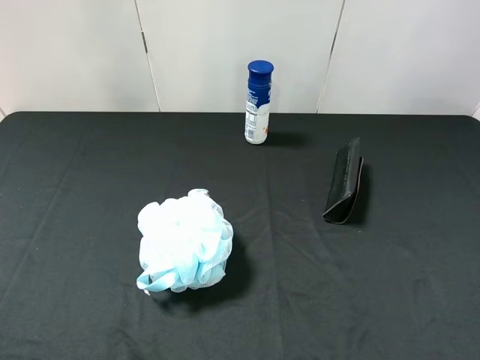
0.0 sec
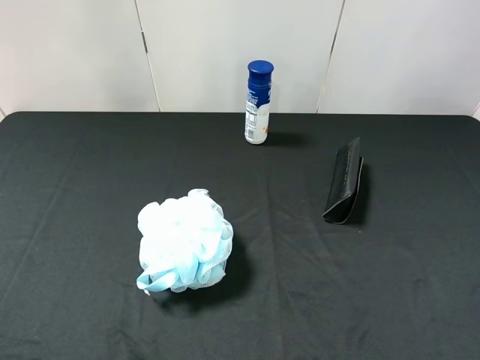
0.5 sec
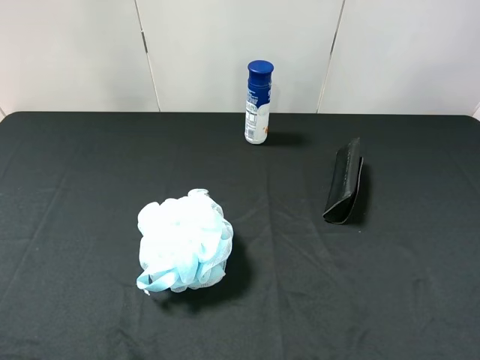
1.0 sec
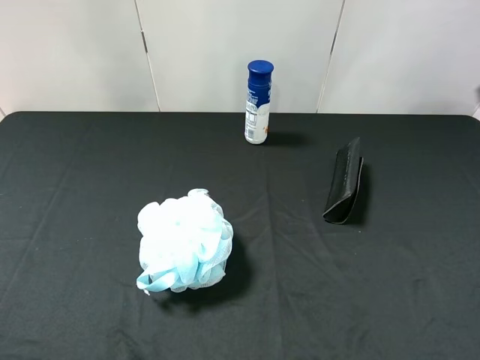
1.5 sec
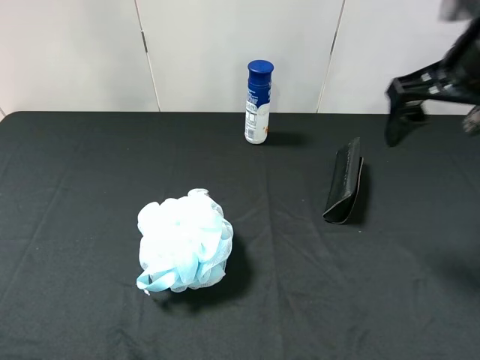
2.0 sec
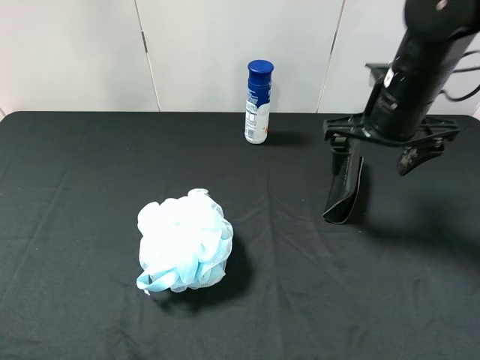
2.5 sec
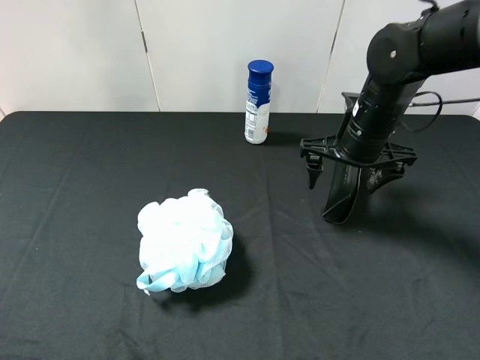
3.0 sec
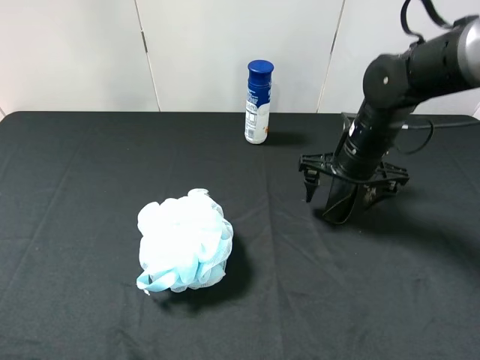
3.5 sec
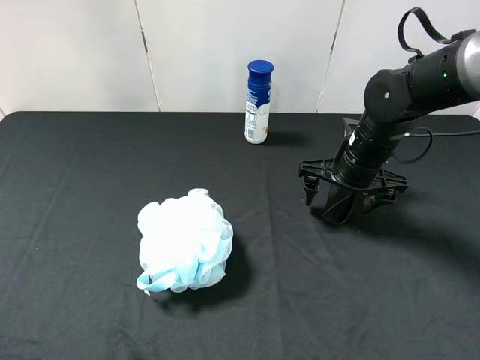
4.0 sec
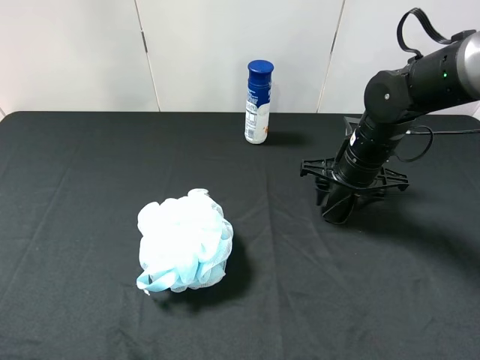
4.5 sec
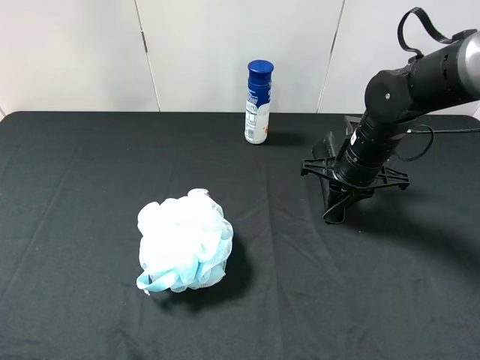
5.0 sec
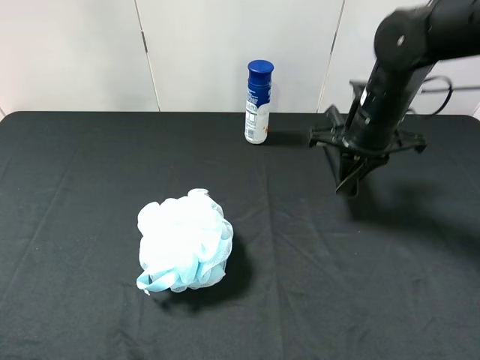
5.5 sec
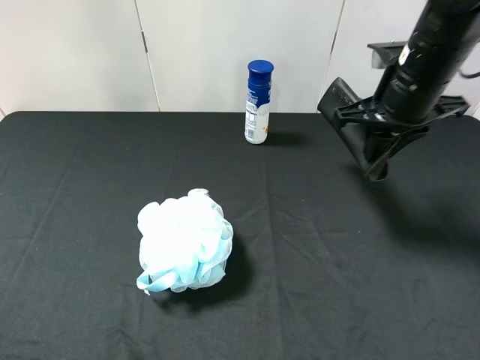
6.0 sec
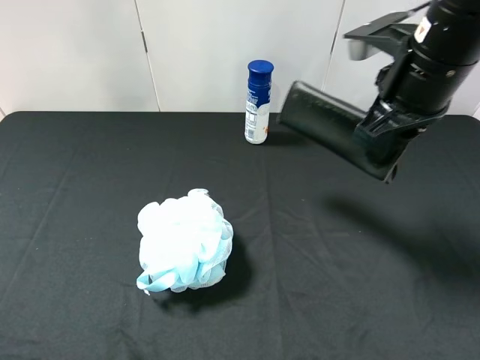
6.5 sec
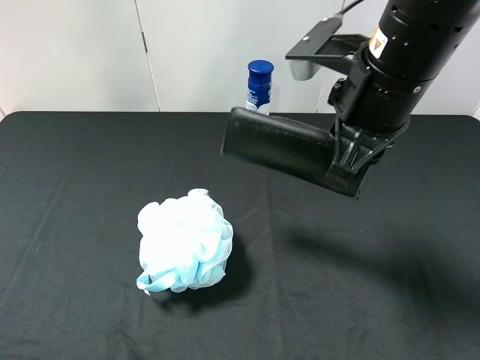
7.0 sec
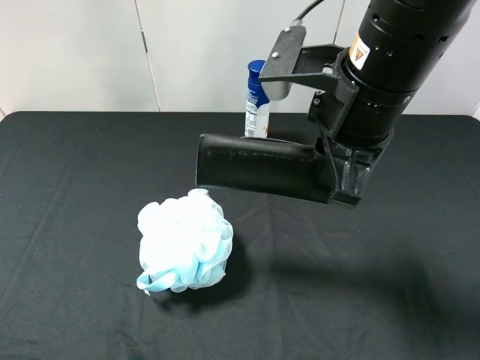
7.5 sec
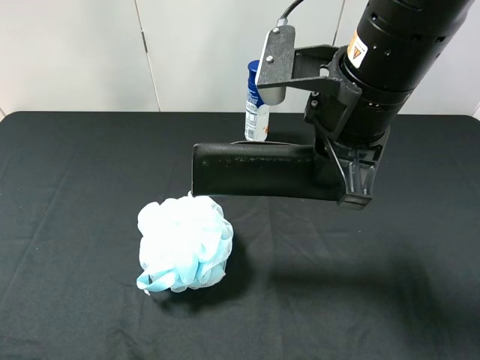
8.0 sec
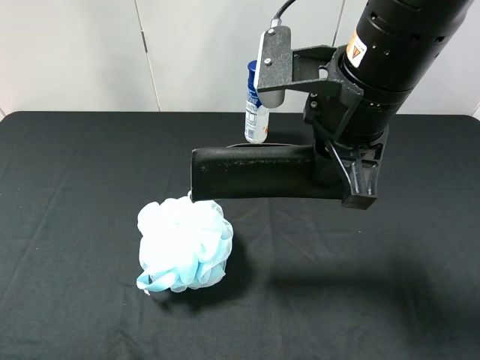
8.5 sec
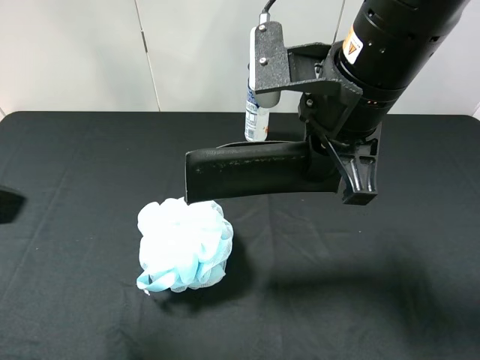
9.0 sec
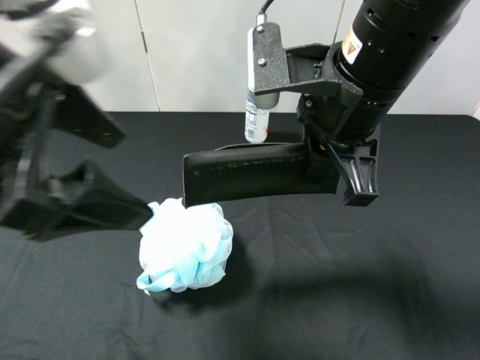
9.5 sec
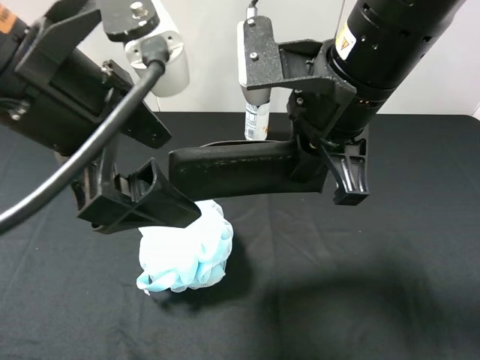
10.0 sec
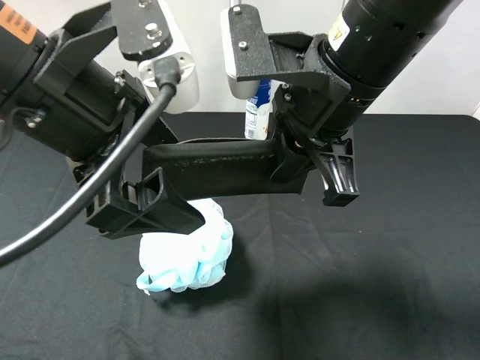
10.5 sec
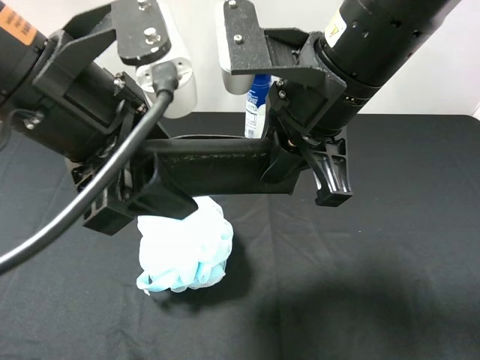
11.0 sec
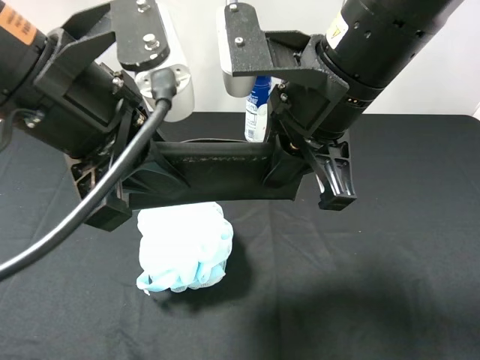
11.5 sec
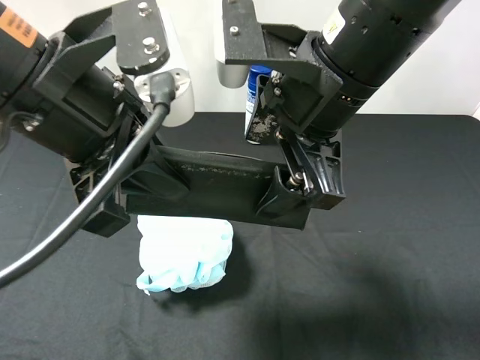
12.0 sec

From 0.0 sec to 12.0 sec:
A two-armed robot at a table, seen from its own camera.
Task of the whole recording: use the right gripper to pick up the item and transfer it from the right gripper to the left gripper.
Step, from 0.0 sec to 4.0 sec: Use the right gripper to grab the eyeglass case on the right side of the table.
From 0.0 sec to 2.0 sec: The right gripper heads forward and to the left, covering about 25 cm.
From 2.0 sec to 4.0 sec: The right gripper goes some 20 cm downward.
From 4.0 sec to 6.0 sec: The right gripper is displaced upward by about 15 cm, and closes its fingers.
From 6.0 sec to 8.0 sec: The right gripper moves to the left and backward, roughly 15 cm.
From 8.0 sec to 10.0 sec: The left gripper moves to the right and forward, approximately 25 cm.
From 10.0 sec to 12.0 sec: The right gripper opens; the left gripper closes.

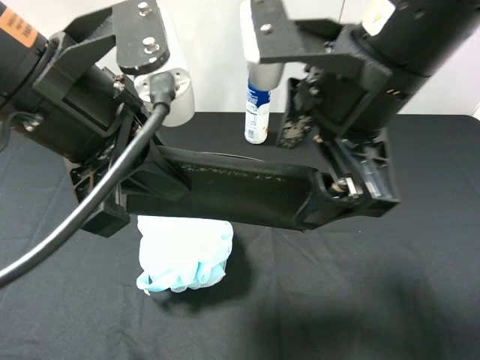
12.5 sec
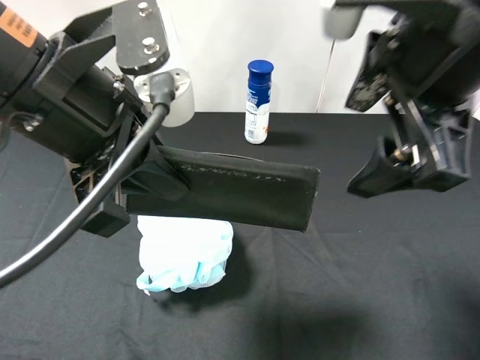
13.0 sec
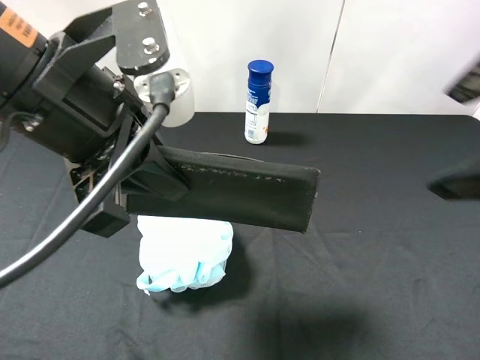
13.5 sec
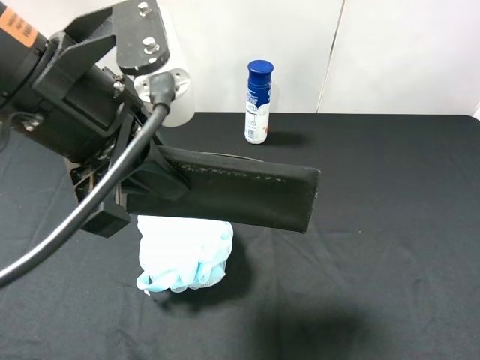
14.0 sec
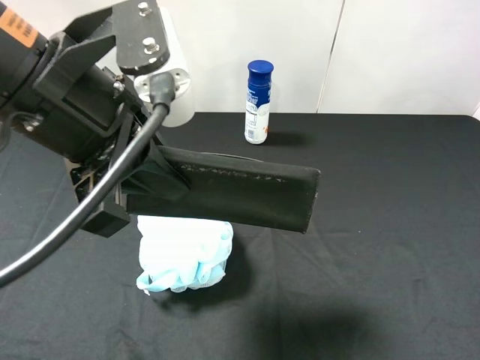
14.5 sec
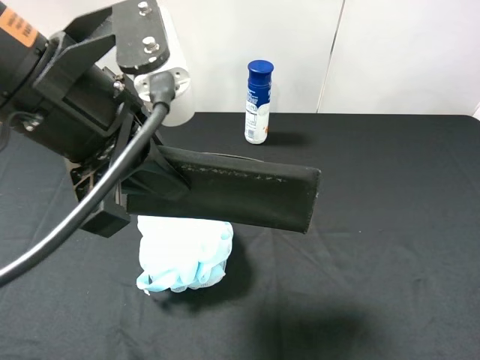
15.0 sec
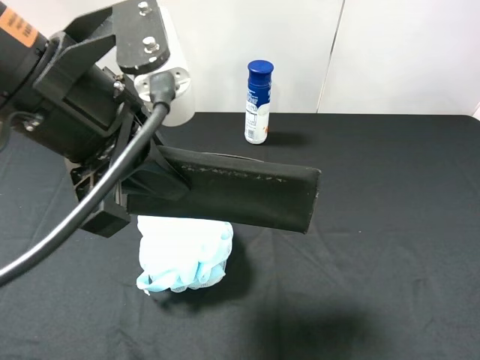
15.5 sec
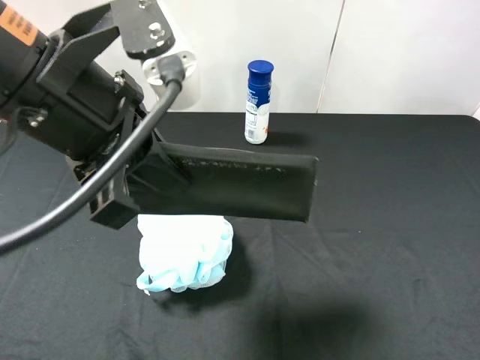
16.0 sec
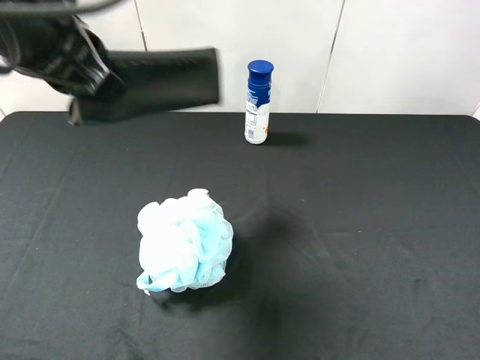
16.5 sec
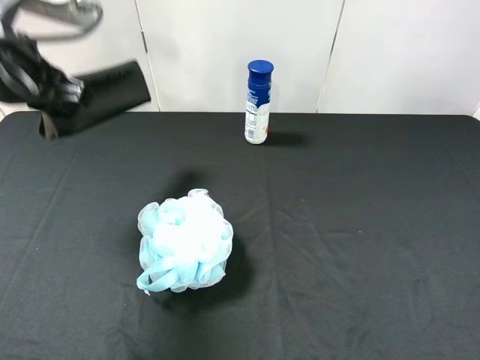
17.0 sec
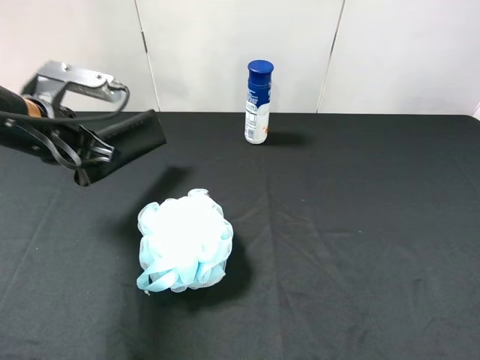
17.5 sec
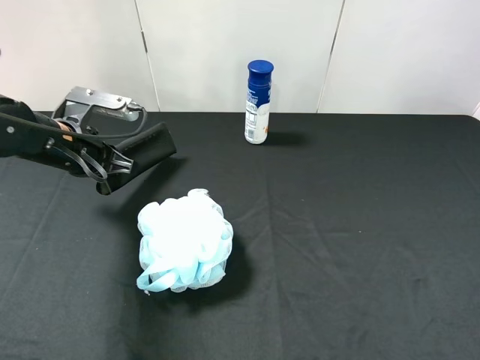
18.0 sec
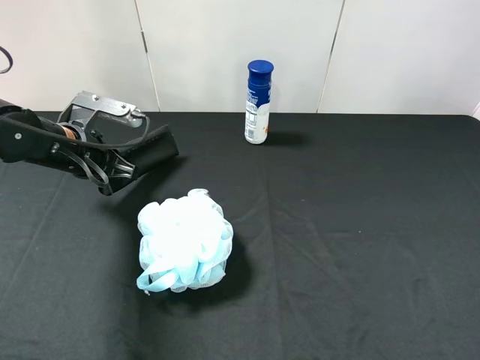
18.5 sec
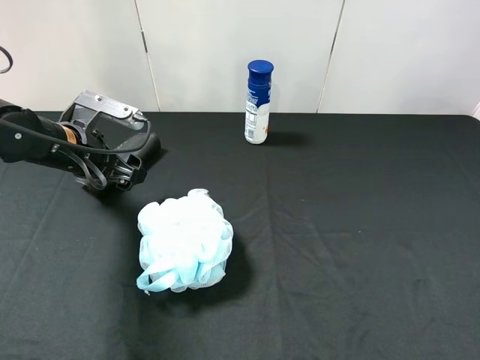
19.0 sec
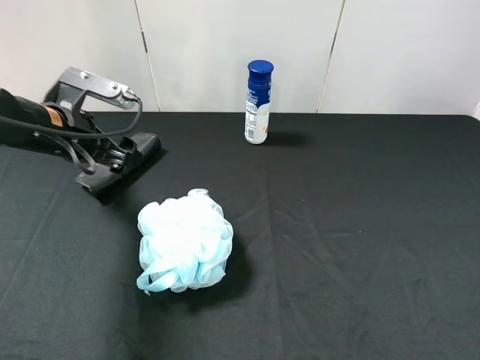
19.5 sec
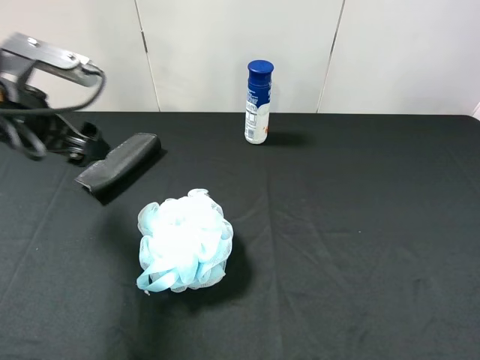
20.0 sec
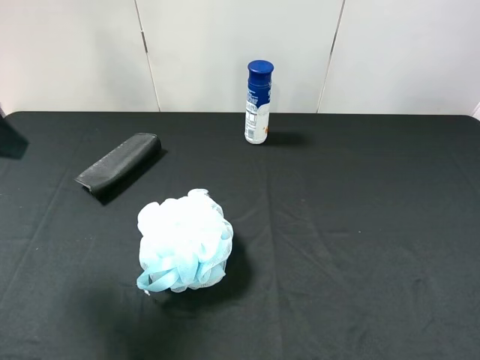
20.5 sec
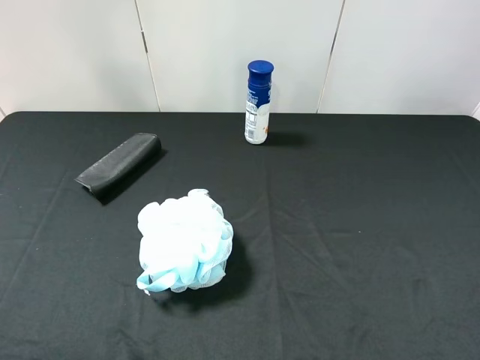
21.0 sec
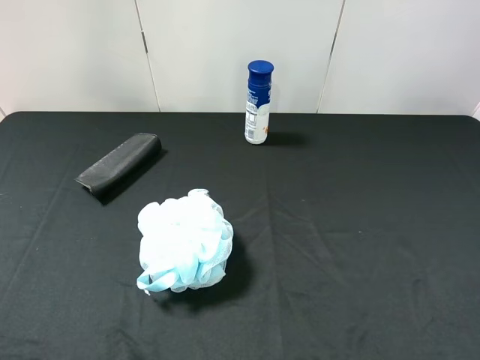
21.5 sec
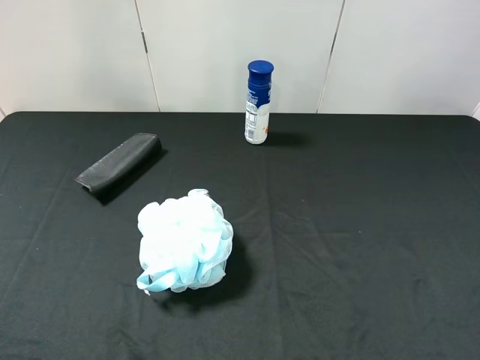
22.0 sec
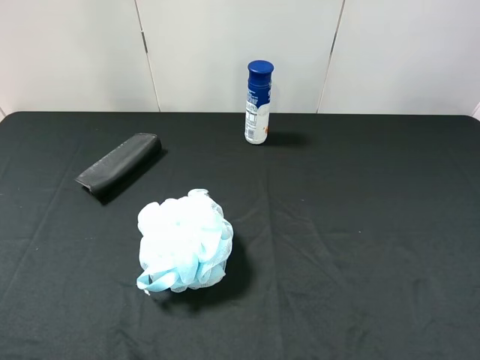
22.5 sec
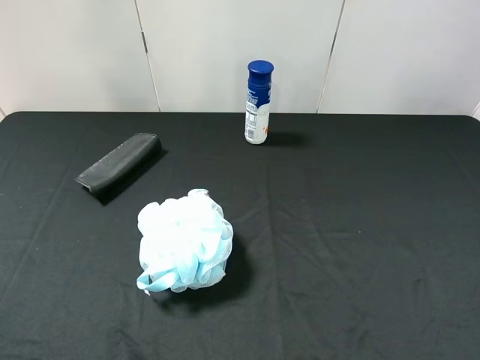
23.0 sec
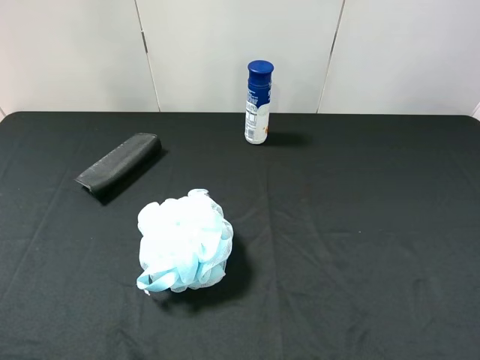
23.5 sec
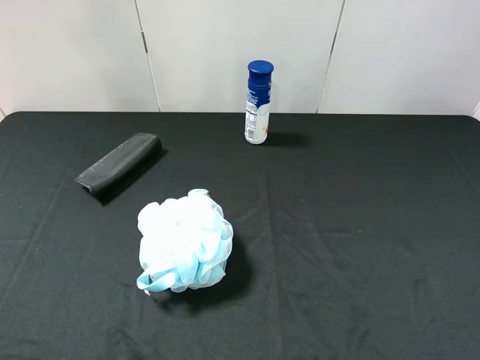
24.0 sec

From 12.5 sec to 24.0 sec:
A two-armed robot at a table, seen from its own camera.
Task of the whole recording: use the right gripper to pick up the item and transfer it from the right gripper to the left gripper.
Step, from 13.0 sec to 19.0 sec: The left gripper places eyeglass case on the left side of the table.
From 12.5 sec to 14.5 sec: The right gripper heads to the right and backward, covering some 25 cm.
From 14.5 sec to 16.5 sec: The left gripper heads forward, covering roughly 5 cm.
From 16.5 sec to 18.5 sec: The left gripper goes some 20 cm downward.
From 18.5 sec to 20.0 sec: The left gripper is displaced upward and backward by some 10 cm, and opens up.
From 20.0 sec to 22.0 sec: The left gripper goes some 25 cm backward.

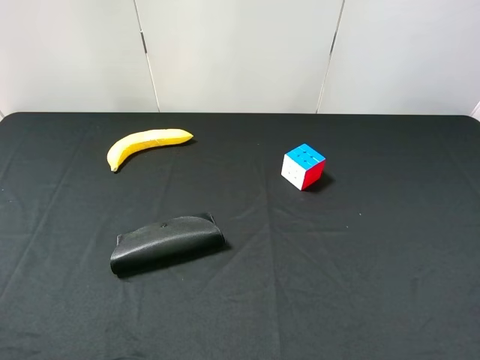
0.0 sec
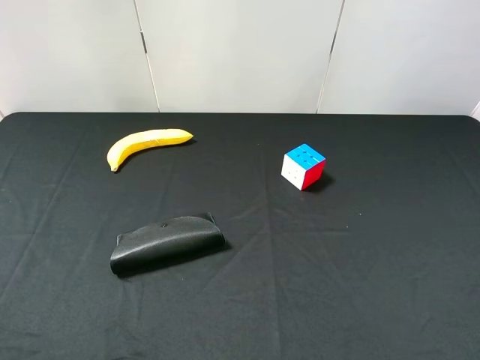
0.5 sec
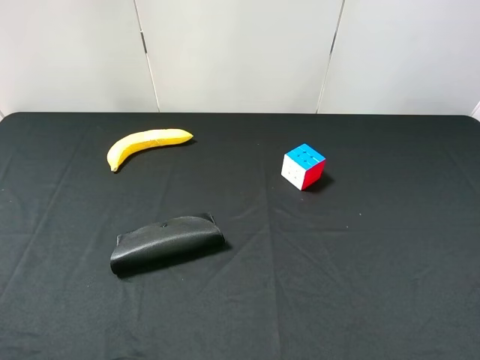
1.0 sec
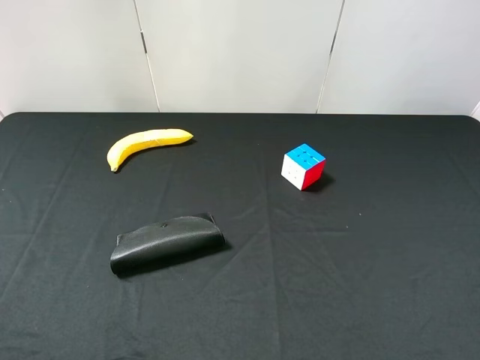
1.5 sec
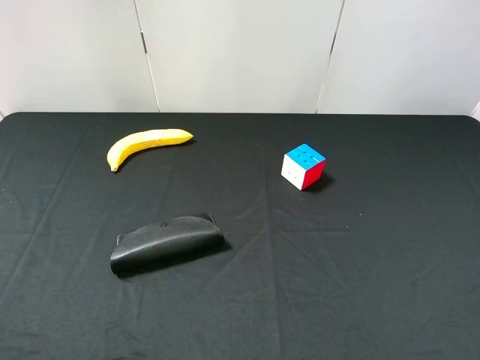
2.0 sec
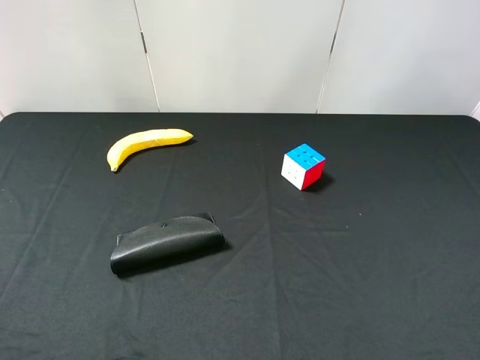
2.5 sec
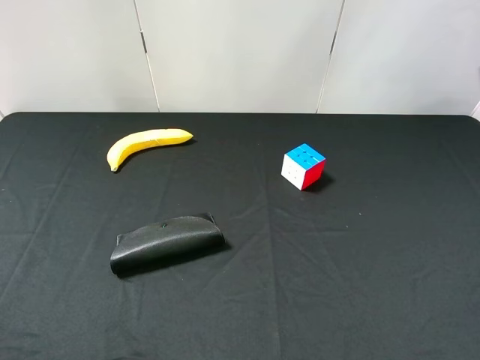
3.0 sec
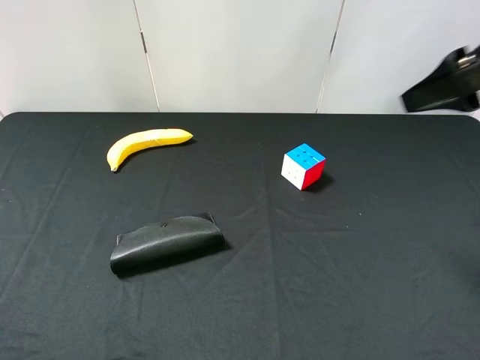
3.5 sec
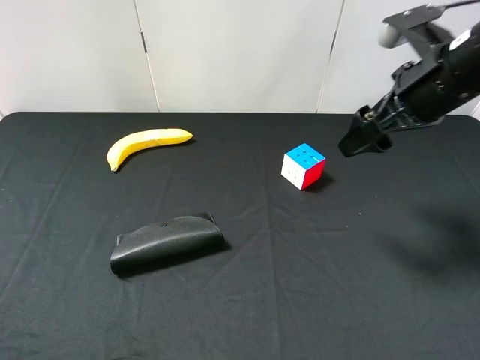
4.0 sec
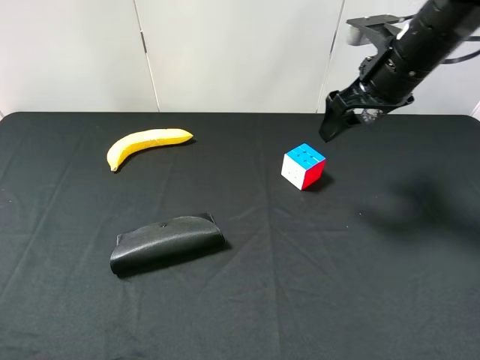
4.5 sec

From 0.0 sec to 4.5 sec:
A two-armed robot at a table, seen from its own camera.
Task of the whole recording: use the right gripper to pick up the item and transfer it from the right gripper to the left gripper.
From 0.0 sec to 2.0 sec: The two grippers keep their place.
From 2.0 sec to 4.5 sec: The right gripper moves forward, about 35 cm.
